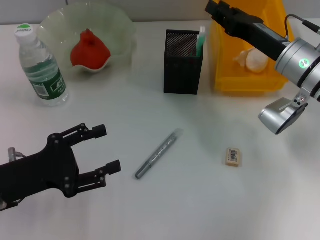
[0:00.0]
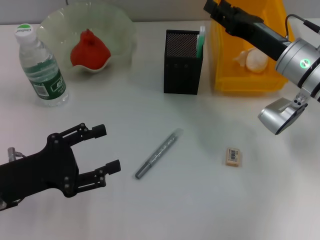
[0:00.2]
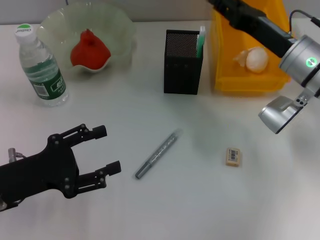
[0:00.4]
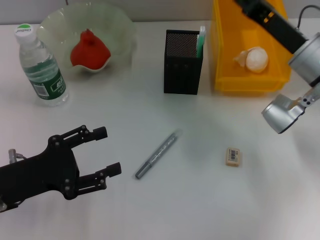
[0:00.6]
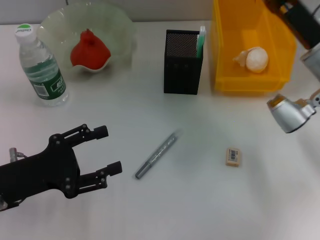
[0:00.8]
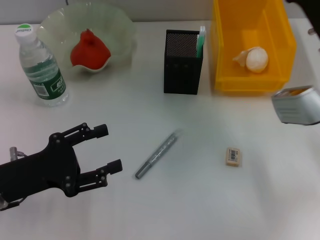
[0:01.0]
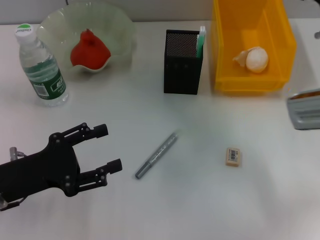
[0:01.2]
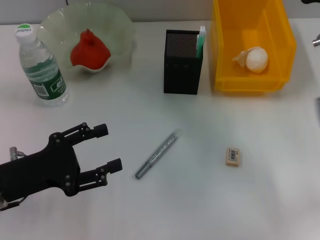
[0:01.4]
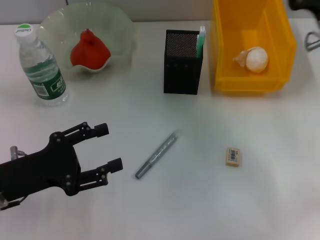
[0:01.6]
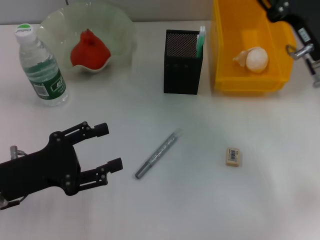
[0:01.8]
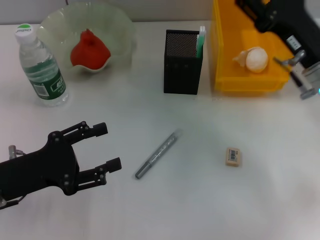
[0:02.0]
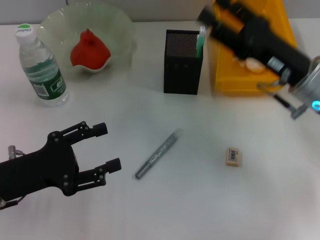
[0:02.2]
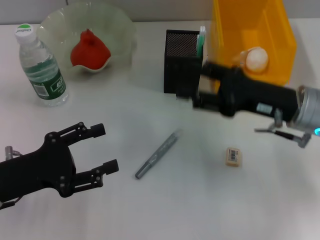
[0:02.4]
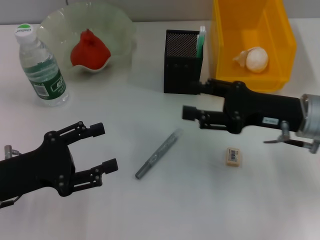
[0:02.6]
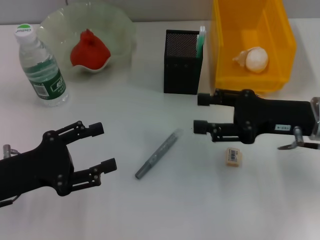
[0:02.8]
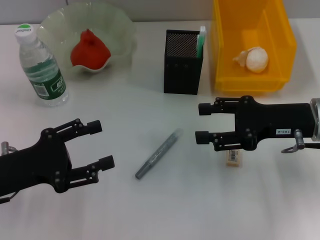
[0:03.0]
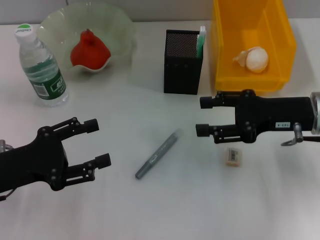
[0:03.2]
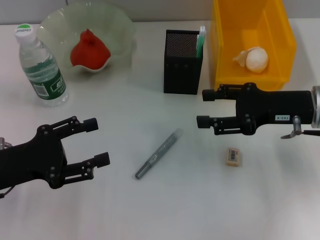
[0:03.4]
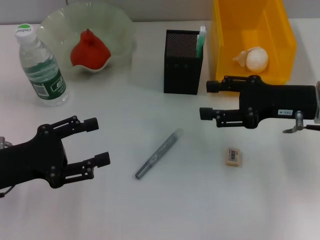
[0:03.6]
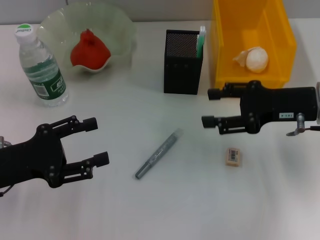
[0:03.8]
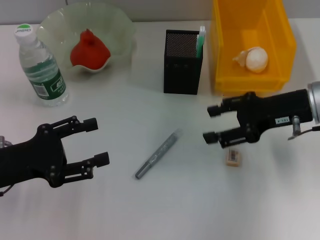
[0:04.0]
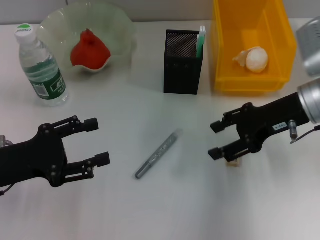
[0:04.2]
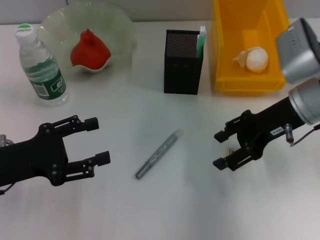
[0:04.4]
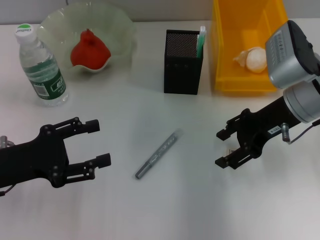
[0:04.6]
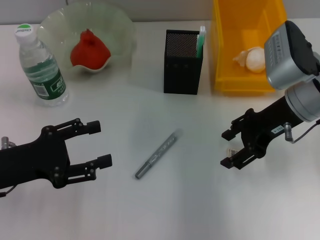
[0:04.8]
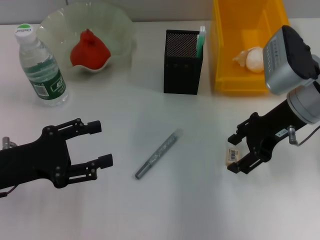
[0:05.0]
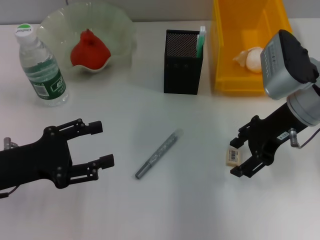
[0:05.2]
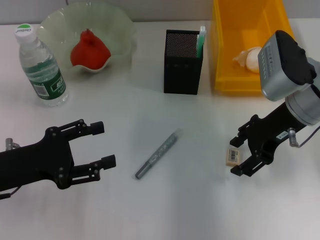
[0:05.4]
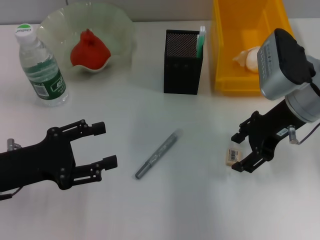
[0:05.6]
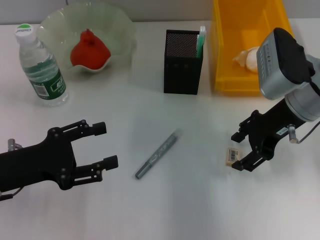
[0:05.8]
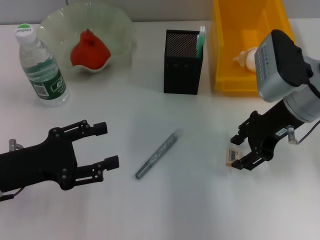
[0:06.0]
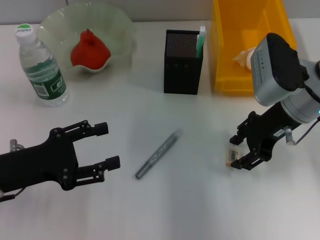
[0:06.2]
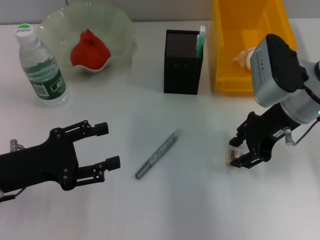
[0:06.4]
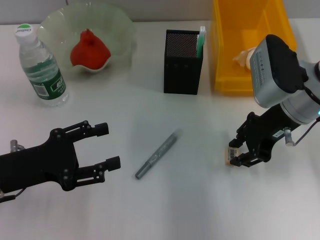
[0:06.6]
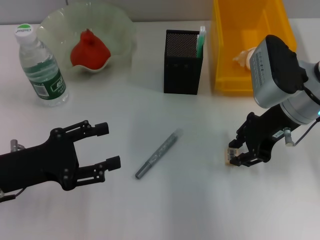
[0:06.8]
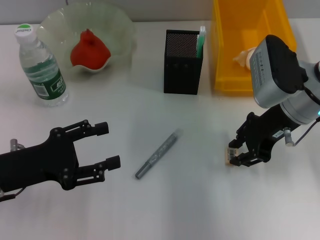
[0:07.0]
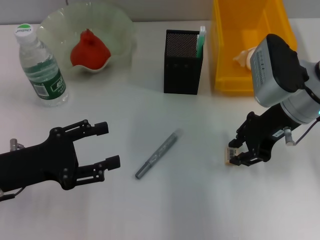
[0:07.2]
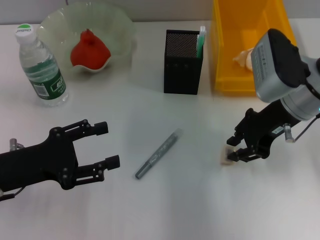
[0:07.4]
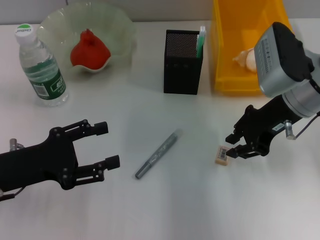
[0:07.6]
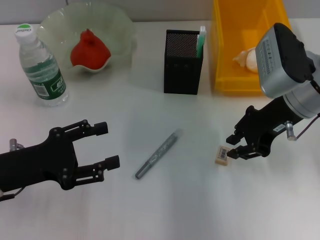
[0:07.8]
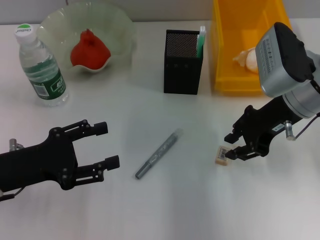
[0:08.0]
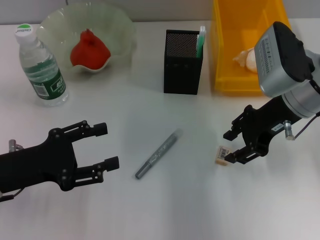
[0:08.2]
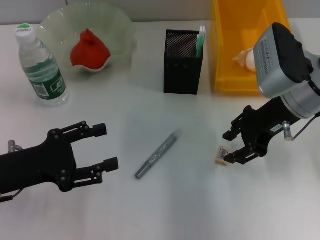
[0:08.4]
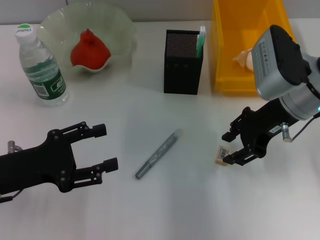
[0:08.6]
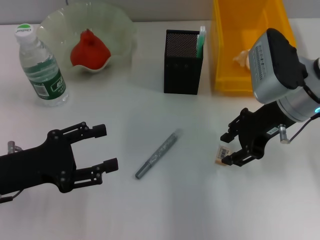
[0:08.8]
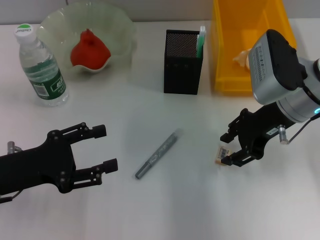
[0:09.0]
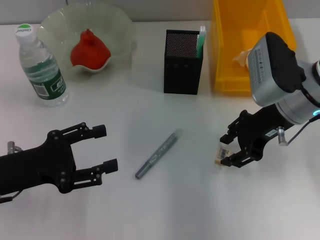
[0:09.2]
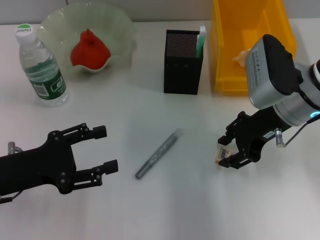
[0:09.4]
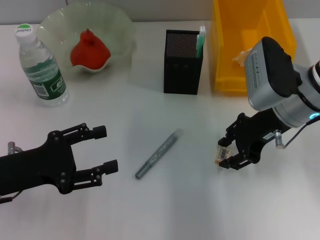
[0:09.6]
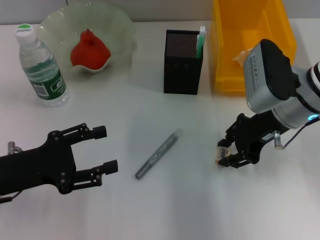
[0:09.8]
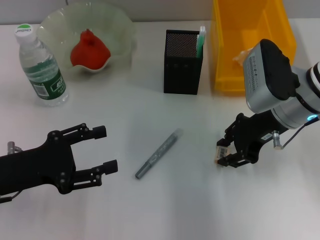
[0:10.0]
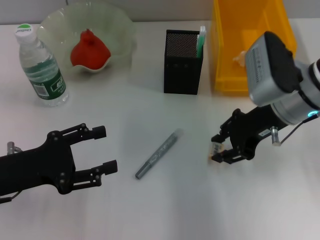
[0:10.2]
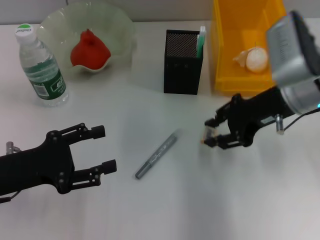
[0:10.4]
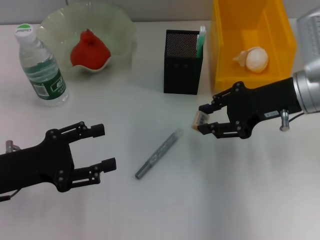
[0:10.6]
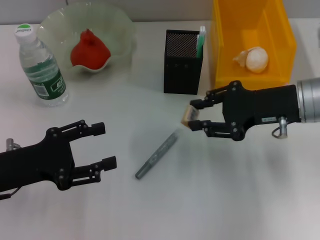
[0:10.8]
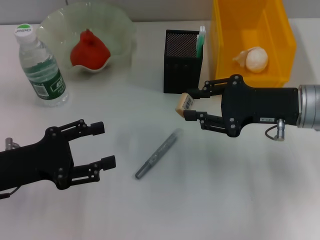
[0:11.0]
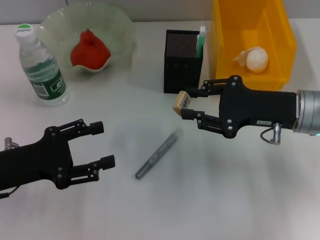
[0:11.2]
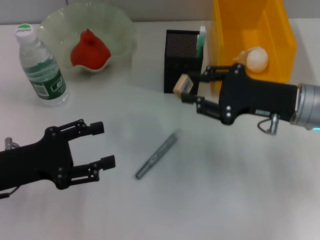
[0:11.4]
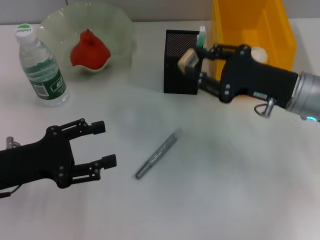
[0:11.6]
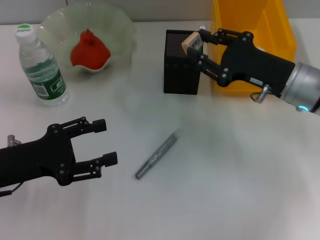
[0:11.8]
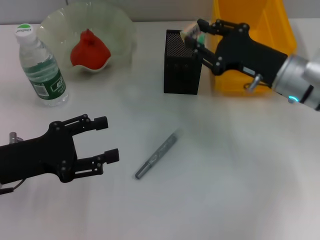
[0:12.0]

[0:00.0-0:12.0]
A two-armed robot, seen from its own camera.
Step, 0:00.2 to 0:09.8: Grab the eraser with the right hand.
0:00.0 to 0:01.6: The right gripper shifts by roughly 5 cm, and opens.
0:03.0 to 0:04.4: The right gripper ends up approximately 5 cm from where it was.
0:04.4 to 0:06.0: The grippers stay close to where they were, moving slightly.
0:06.0 to 0:07.6: The right gripper closes.
0:07.6 to 0:09.0: Both grippers stay about where they are.
0:09.0 to 0:10.4: The grippers move only a little.
0:10.4 to 0:12.0: The right gripper ends up some 5 cm from where it was.

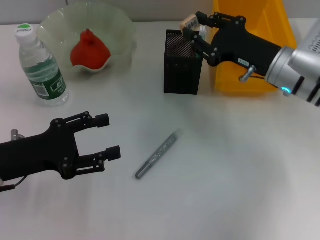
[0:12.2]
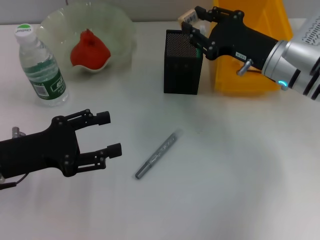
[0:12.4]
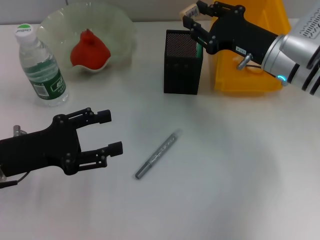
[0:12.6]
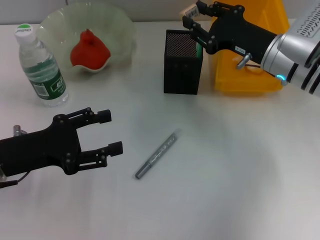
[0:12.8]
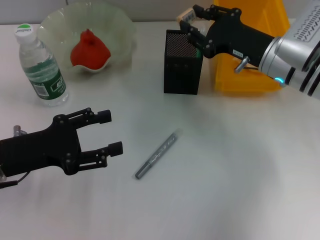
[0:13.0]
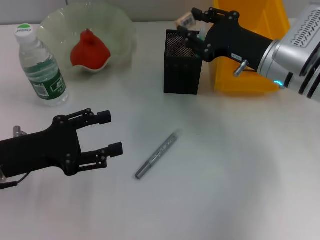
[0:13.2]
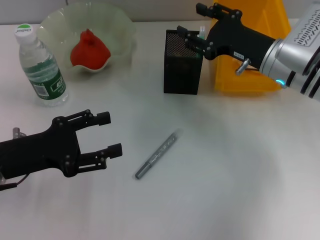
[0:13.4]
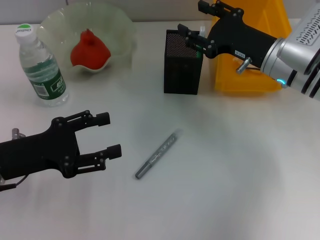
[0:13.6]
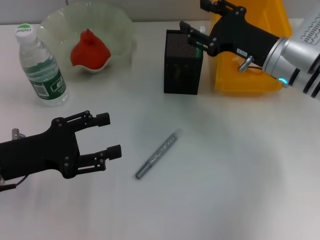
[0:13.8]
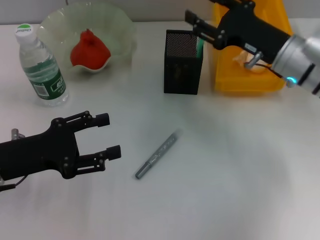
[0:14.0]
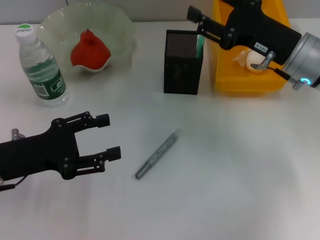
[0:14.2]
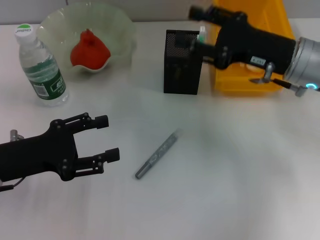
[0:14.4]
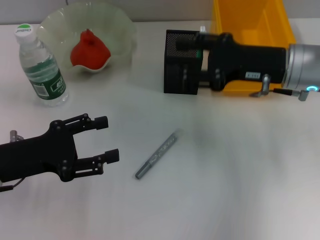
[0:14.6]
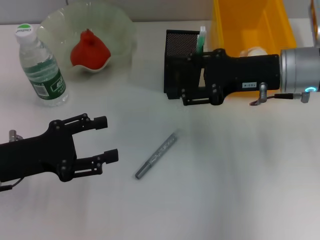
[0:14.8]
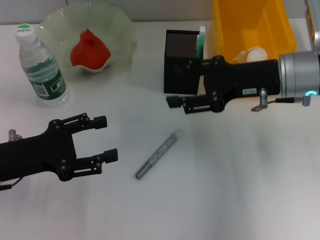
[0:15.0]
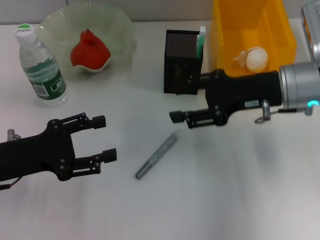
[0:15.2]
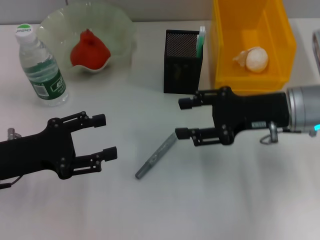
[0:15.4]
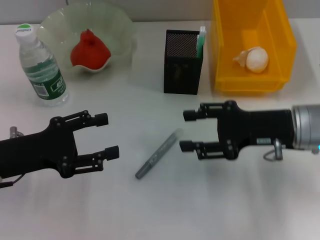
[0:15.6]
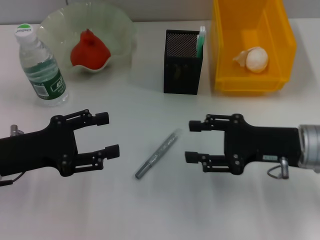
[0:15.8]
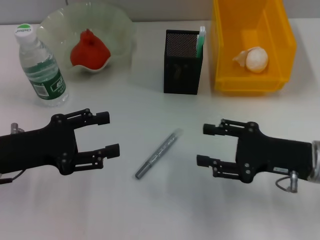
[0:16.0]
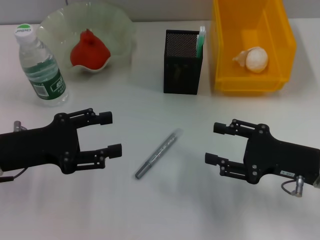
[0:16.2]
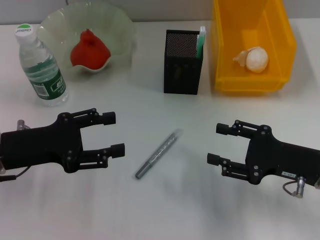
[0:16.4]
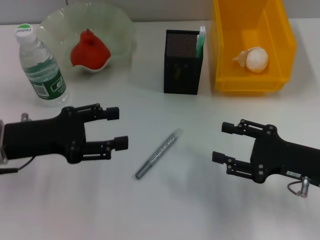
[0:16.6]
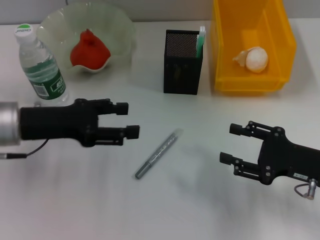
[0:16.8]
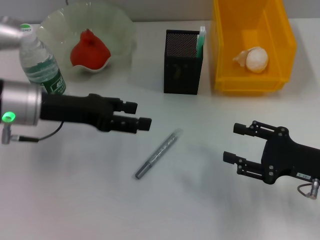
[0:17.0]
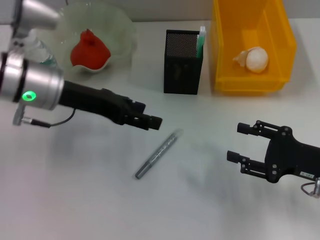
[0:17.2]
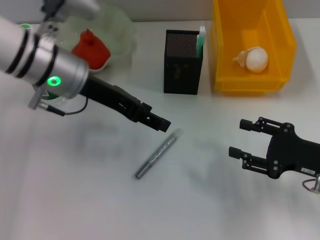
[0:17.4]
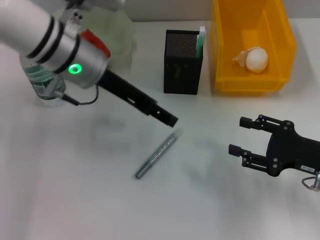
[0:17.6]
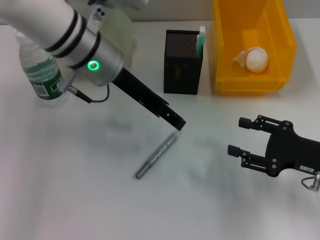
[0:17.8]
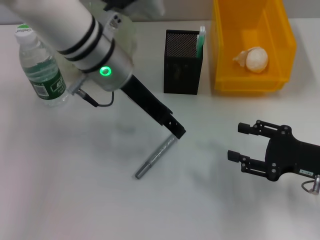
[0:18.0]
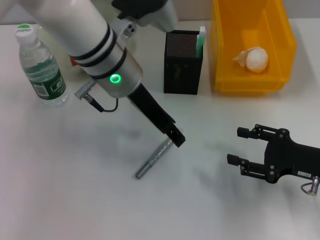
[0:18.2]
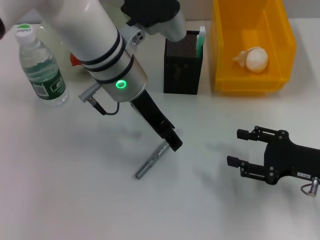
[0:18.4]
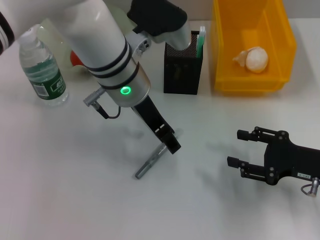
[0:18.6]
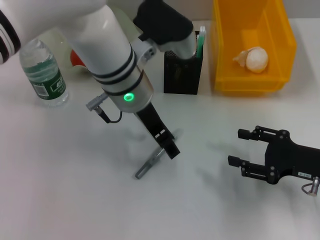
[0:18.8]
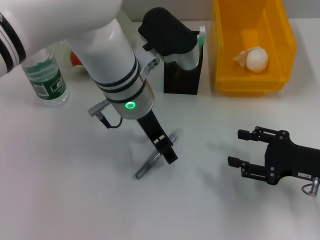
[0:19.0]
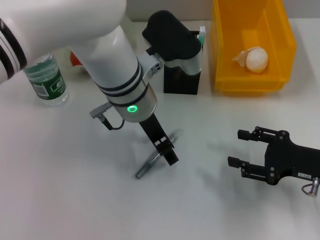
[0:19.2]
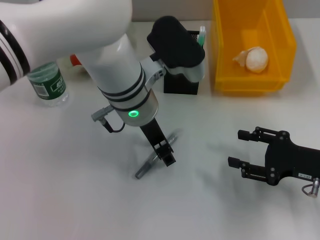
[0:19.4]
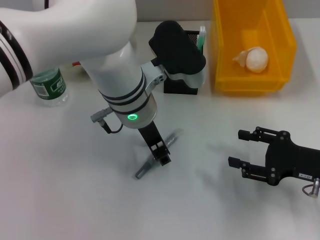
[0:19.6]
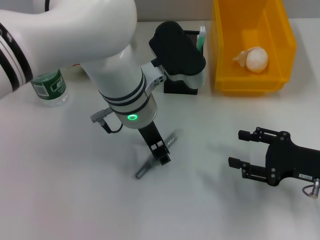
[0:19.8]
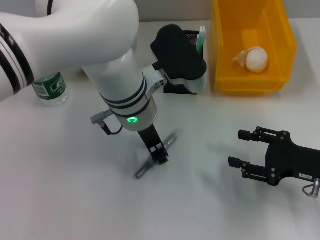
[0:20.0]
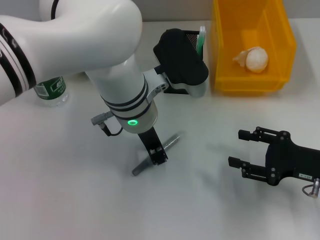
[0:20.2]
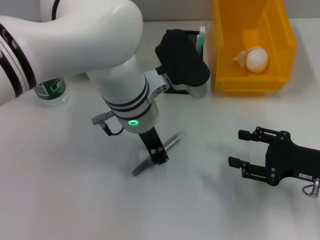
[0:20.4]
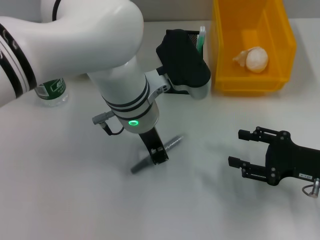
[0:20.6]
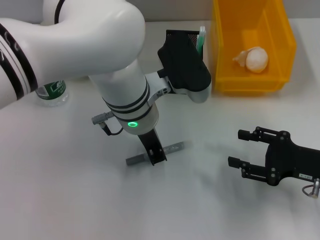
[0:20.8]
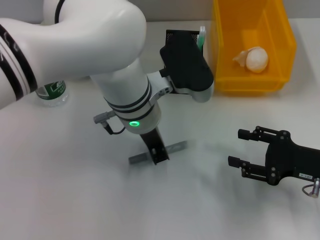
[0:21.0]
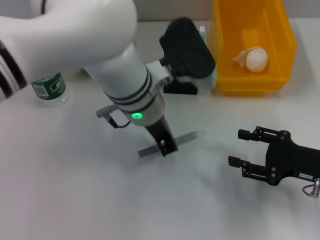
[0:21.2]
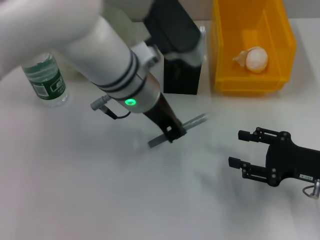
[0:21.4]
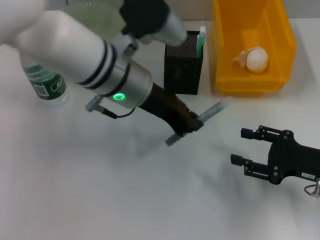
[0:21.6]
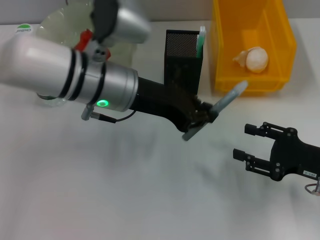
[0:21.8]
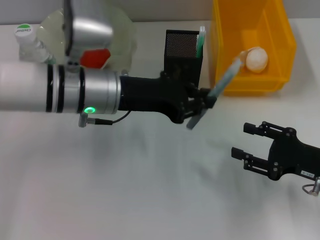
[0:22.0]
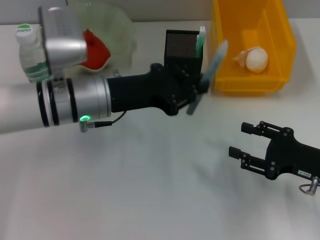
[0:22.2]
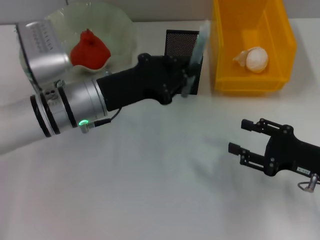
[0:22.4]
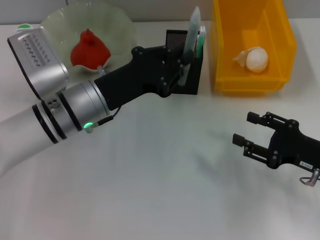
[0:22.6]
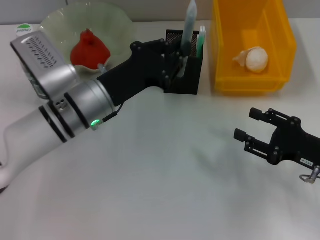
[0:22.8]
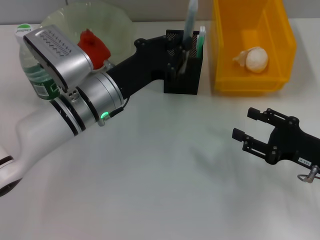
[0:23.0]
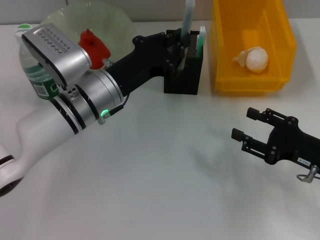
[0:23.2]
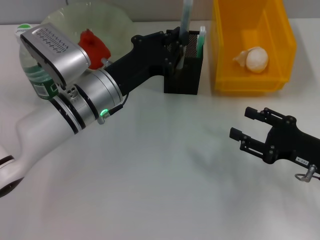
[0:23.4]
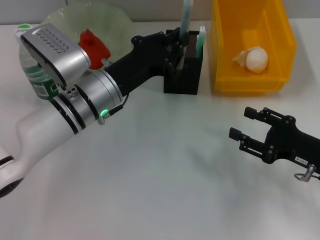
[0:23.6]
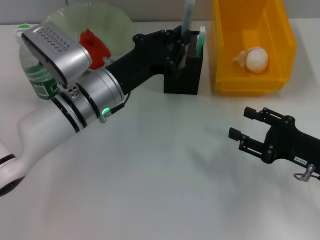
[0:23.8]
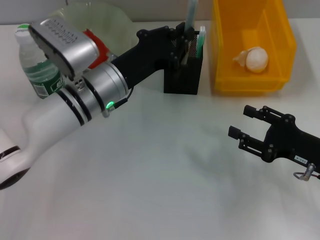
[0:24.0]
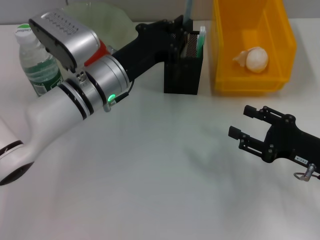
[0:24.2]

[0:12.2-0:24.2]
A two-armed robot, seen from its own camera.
Step, 0:13.6 to 0:20.6: Grab the gray glue with the left hand.
0:12.2 to 0:13.8: The right gripper opens.
0:15.2 to 0:16.6: The right gripper goes approximately 15 cm backward, downward and to the right.
0:16.6 to 0:18.2: The left gripper heads to the right, forward and upward, covering roughly 25 cm.
0:18.2 to 0:19.8: The left gripper ends up approximately 5 cm from where it was.
0:19.8 to 0:21.2: The left gripper closes up.
0:21.2 to 0:22.6: The left gripper shifts approximately 10 cm to the left and downward.
0:22.6 to 0:24.2: The grippers make only small movements.
